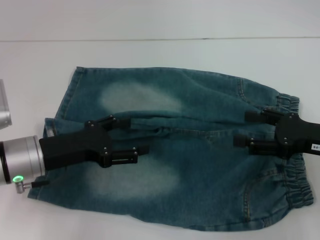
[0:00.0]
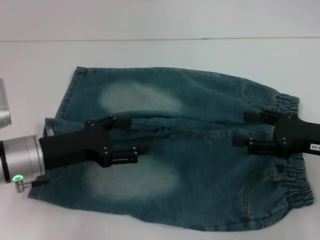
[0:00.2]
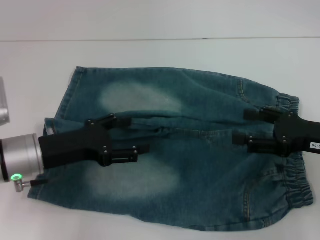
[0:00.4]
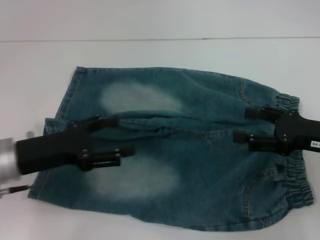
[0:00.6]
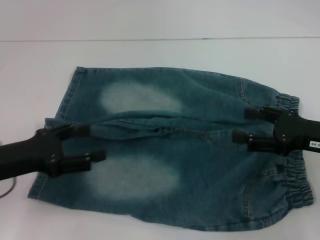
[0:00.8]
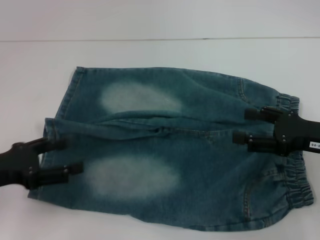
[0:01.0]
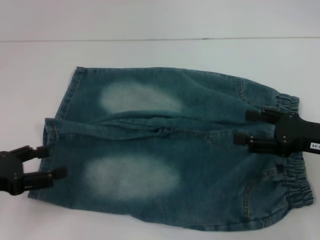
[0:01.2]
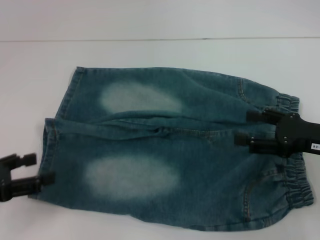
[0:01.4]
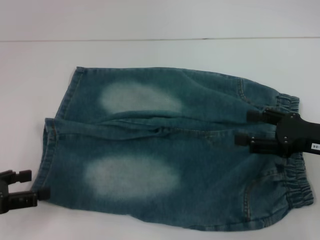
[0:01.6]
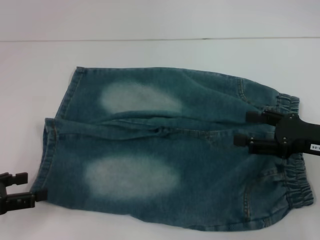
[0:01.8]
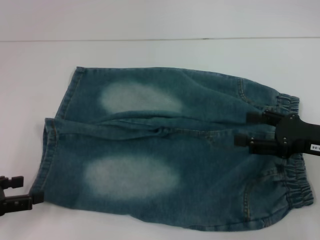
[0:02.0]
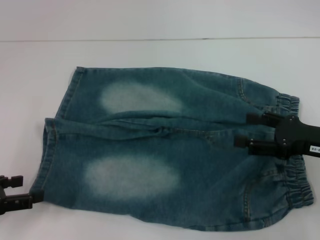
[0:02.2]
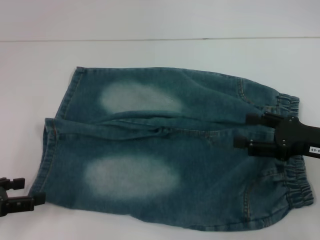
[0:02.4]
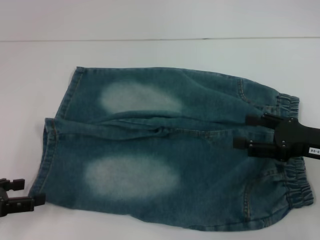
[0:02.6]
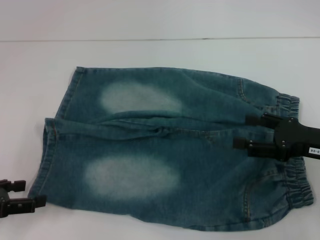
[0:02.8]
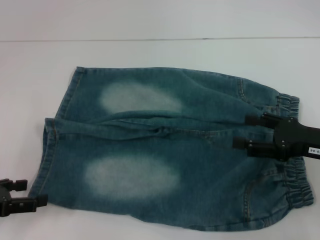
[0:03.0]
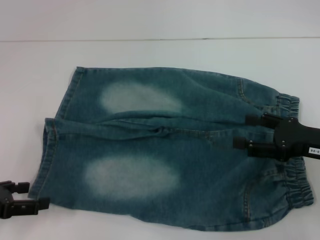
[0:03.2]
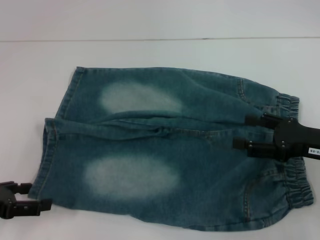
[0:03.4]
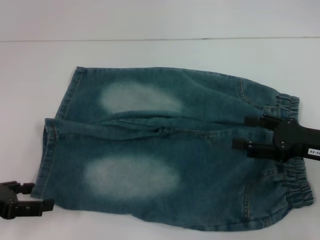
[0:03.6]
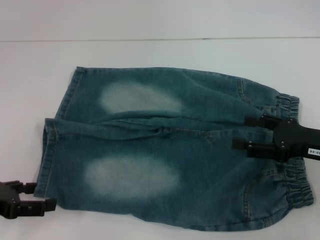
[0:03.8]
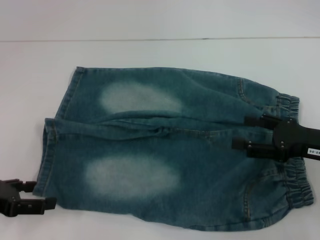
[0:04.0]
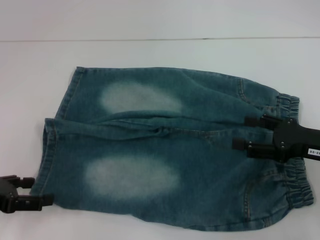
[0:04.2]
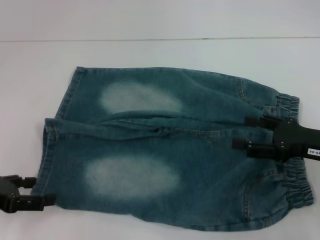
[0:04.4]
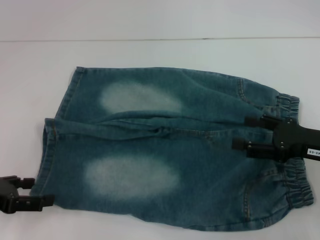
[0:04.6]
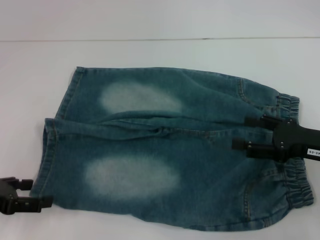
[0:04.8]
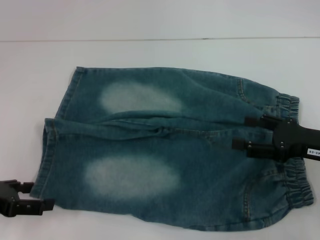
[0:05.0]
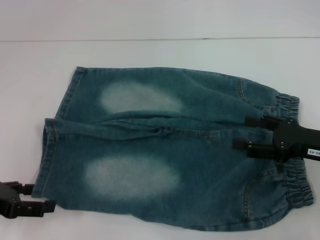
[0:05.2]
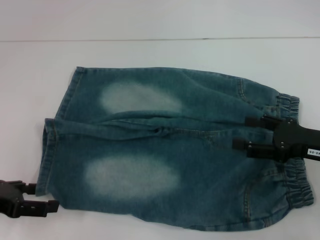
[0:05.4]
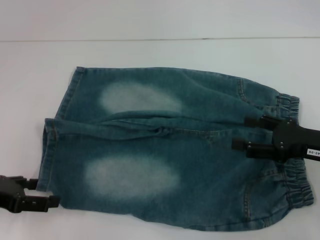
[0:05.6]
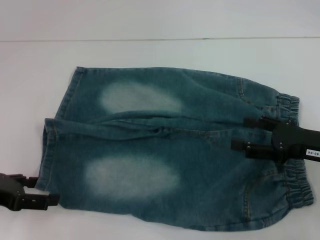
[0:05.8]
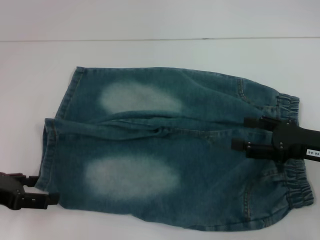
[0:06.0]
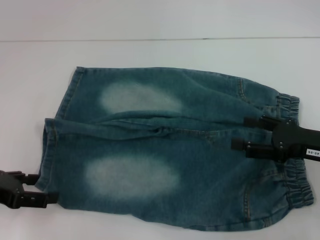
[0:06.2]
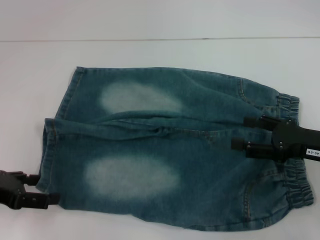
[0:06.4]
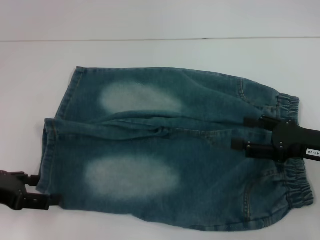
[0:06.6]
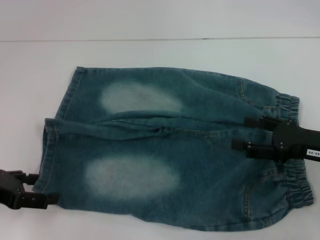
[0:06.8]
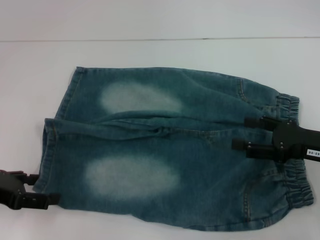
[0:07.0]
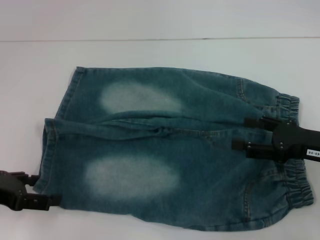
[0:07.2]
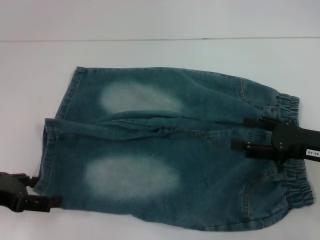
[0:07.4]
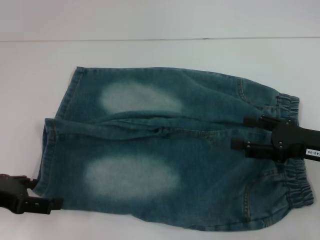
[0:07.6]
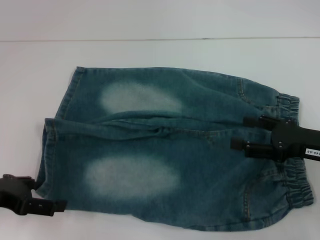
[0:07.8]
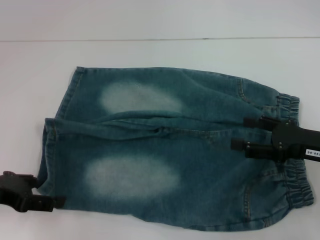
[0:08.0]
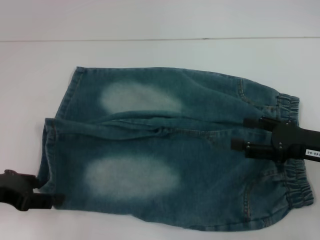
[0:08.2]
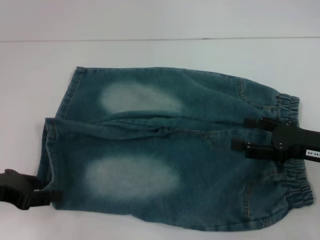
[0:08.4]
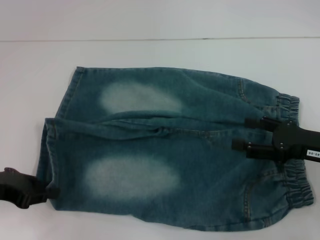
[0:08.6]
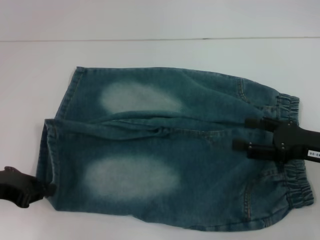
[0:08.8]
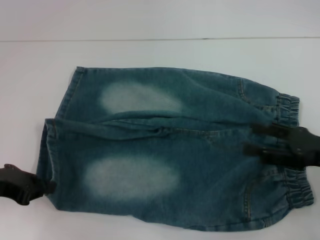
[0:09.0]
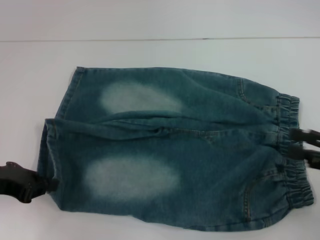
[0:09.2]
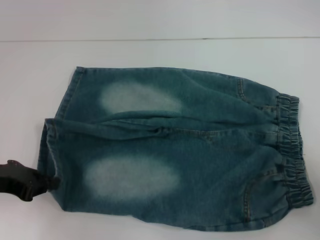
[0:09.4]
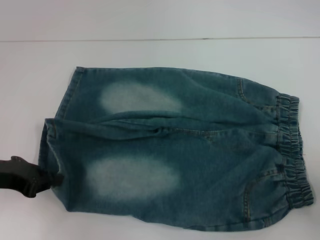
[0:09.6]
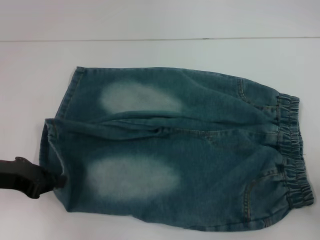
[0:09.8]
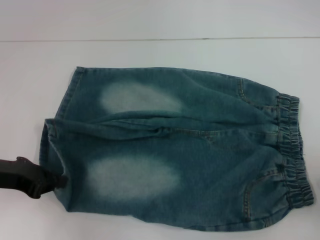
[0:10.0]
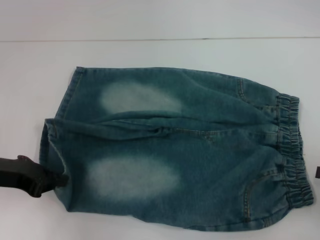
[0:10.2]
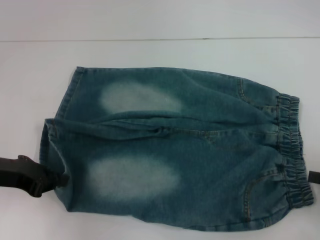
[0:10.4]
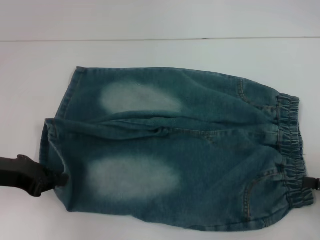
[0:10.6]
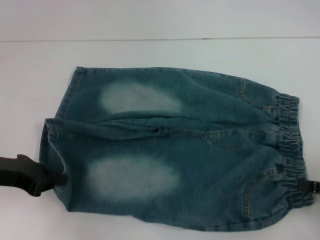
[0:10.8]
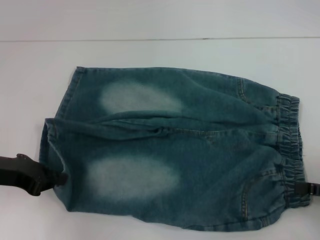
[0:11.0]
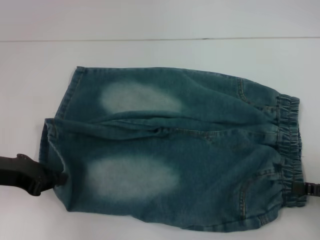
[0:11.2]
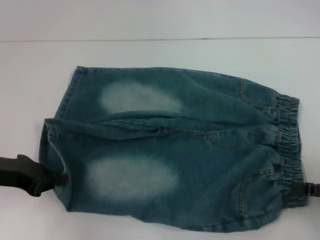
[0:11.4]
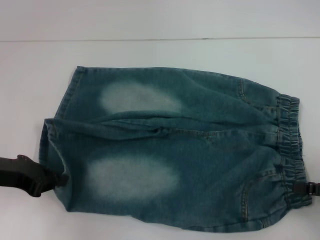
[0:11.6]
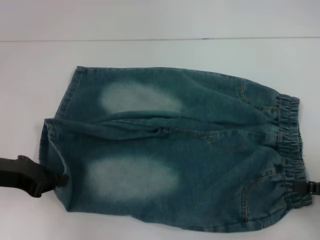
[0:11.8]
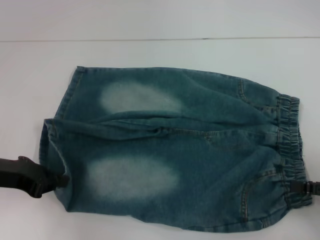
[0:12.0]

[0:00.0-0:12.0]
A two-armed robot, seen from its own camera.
Step, 0:00.0 to 0:08.4: Grab the lower left pant leg with your left hand.
0:00.0 to 0:01.6: The left gripper is displaced to the left and backward by some 15 cm.
0:01.6 to 0:04.4: The grippers stay close to where they were, moving slightly.
0:04.4 to 0:06.0: The two grippers keep their place.
0:06.0 to 0:07.6: The two grippers keep their place.
0:07.6 to 0:09.0: The left gripper closes up.
0:09.0 to 0:10.4: The right gripper heads to the right, covering approximately 10 cm.
0:10.4 to 0:12.0: The grippers stay close to where they were, moving slightly.

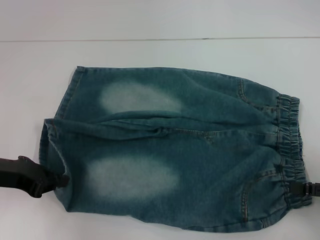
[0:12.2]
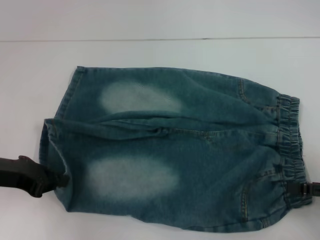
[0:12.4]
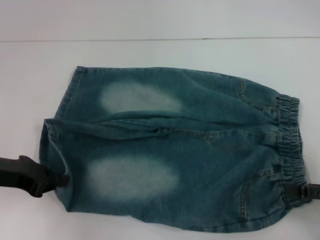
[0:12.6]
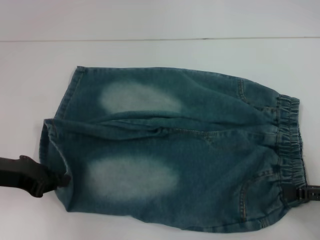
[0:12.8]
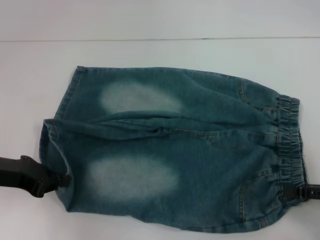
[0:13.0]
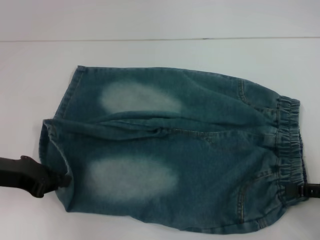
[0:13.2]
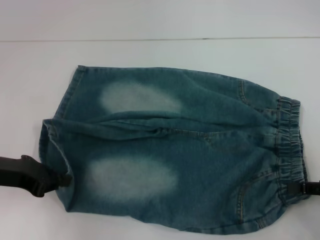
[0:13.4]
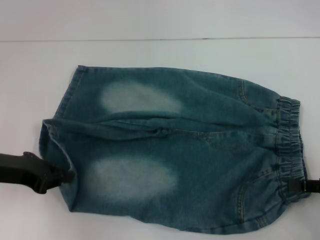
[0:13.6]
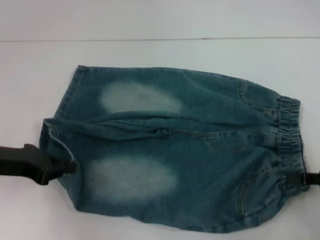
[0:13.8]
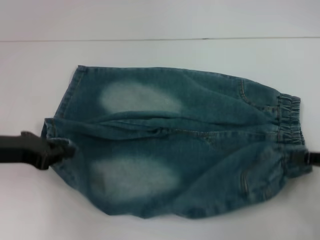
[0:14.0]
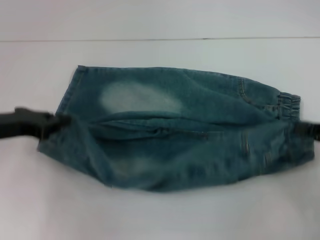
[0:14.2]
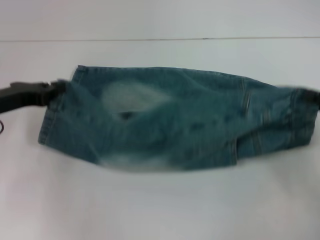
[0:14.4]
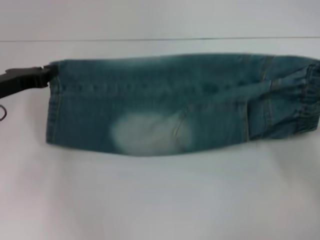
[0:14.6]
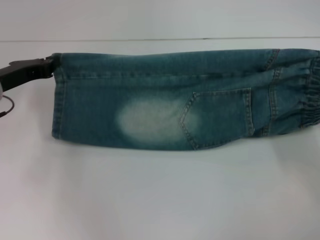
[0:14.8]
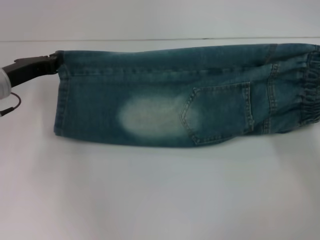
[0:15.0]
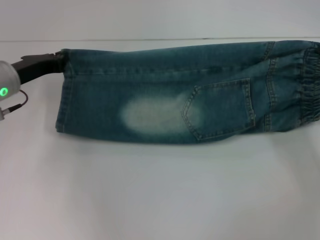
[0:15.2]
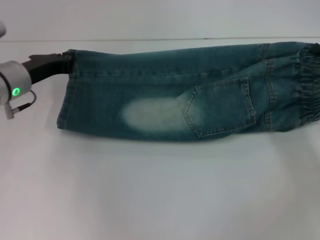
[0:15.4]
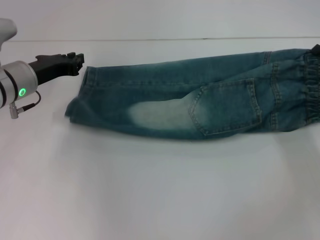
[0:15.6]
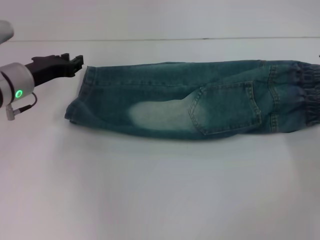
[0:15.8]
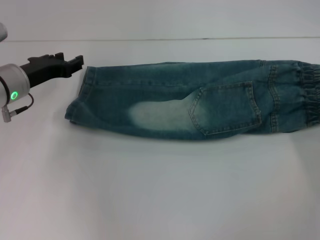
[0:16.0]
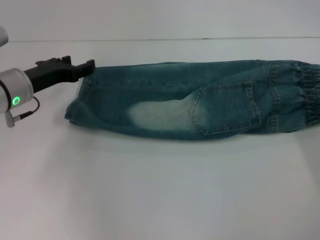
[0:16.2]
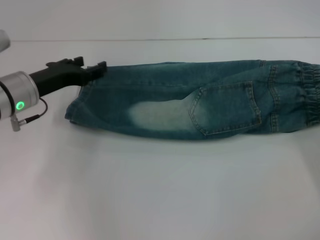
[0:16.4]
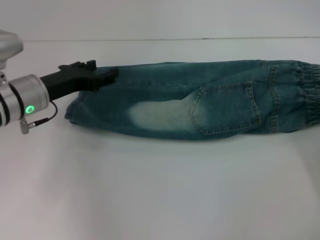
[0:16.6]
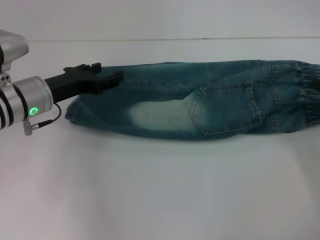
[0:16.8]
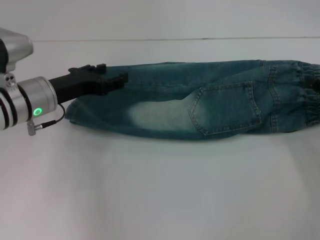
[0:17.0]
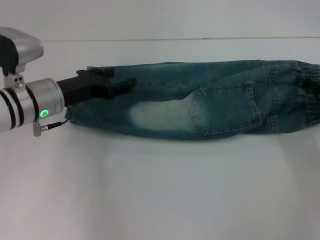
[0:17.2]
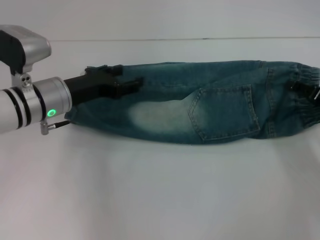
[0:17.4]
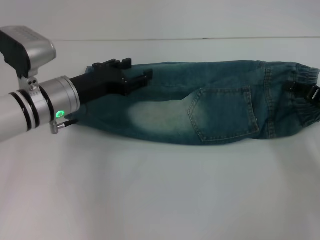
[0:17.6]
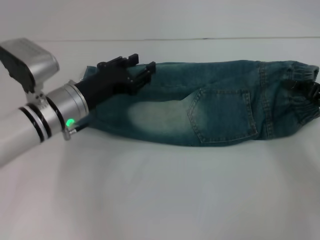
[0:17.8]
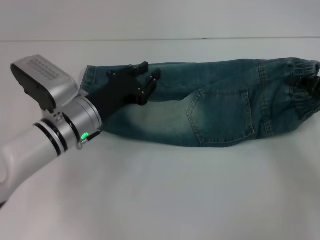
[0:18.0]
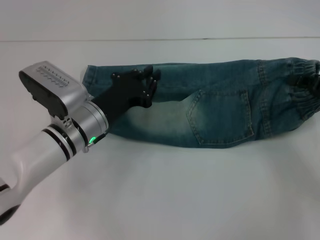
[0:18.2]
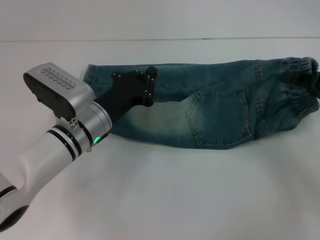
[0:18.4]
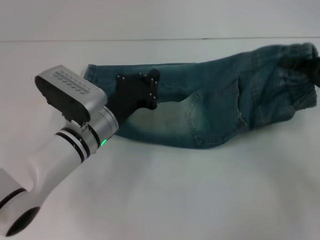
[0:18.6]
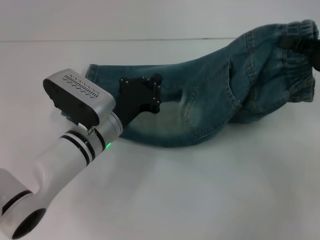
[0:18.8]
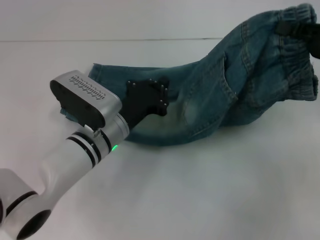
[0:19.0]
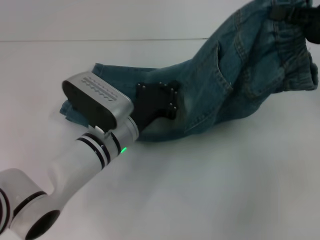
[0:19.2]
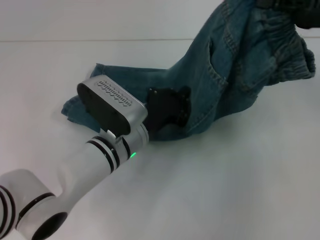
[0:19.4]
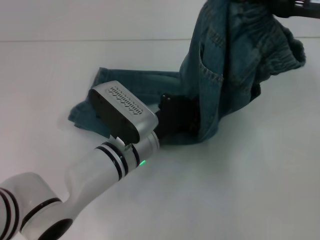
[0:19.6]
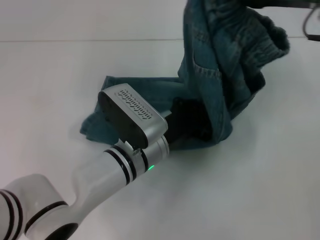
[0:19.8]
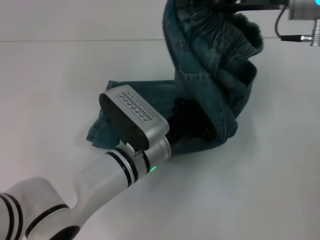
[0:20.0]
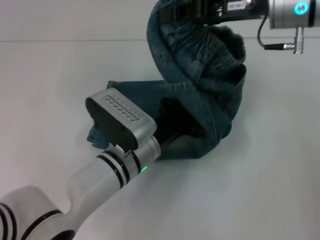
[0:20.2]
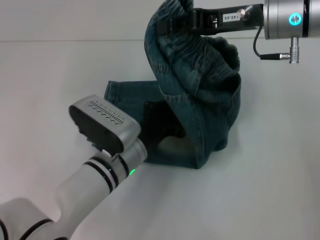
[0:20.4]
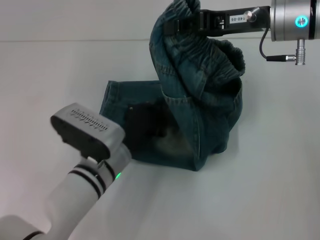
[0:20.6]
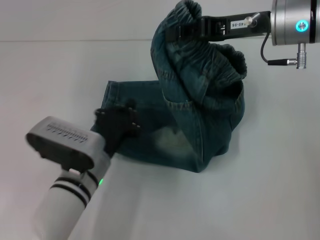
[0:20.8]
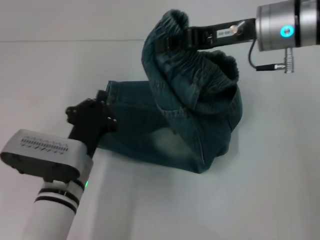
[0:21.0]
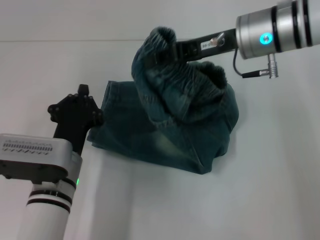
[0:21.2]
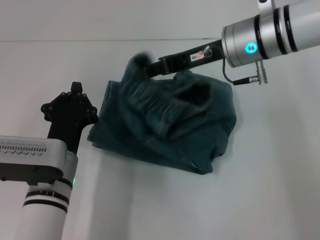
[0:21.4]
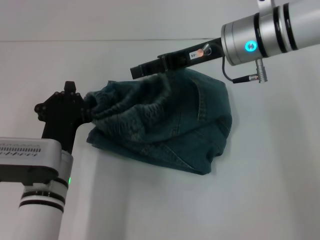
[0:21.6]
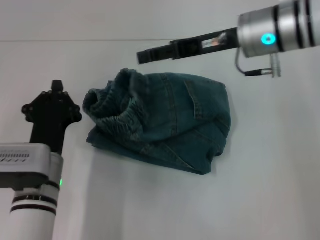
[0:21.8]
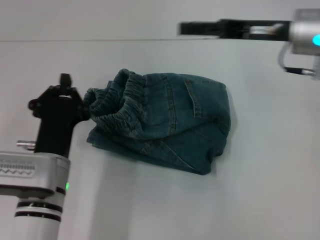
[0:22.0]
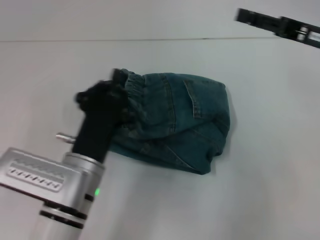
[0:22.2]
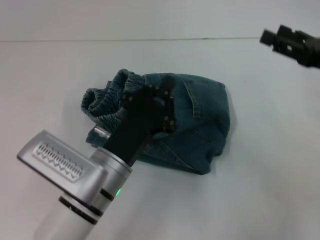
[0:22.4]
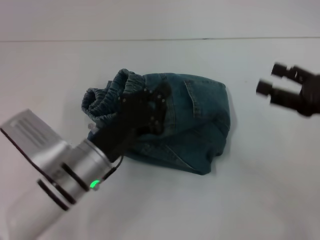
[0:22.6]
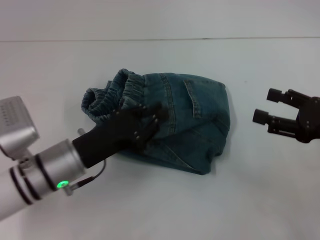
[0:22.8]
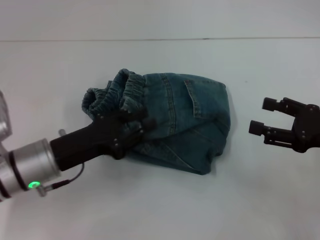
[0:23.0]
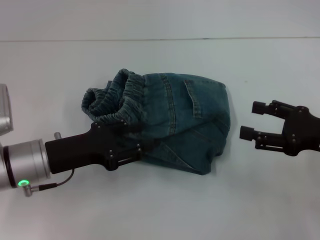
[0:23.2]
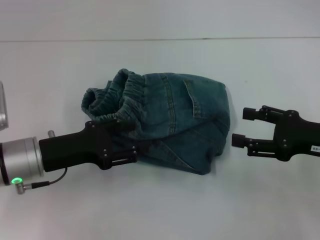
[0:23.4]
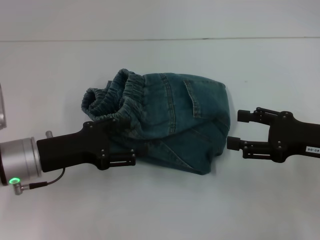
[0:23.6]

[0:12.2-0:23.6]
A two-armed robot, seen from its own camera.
Step, 0:13.0 to 0:15.8: Fold upward with your right hand.
Step, 0:16.0 to 0:16.8: Grab the waistband with your right hand.
Step, 0:17.2 to 0:20.4: Press the middle of the pants with your left hand.
Step, 0:20.6 to 0:21.6: Fold to the left with your right hand.
0:12.2 to 0:13.6: The right gripper closes.
0:13.6 to 0:15.0: Both grippers move forward, approximately 10 cm.
0:15.0 to 0:16.4: The left gripper opens its fingers, while the right gripper opens its fingers.
0:16.4 to 0:17.8: The right gripper moves about 5 cm, and closes up. Meanwhile the left gripper travels to the right by some 5 cm.
0:17.8 to 0:19.4: The left gripper is displaced to the right by approximately 10 cm, and closes its fingers. Meanwhile the right gripper moves upward, approximately 15 cm.
0:19.4 to 0:20.8: The left gripper shifts by about 5 cm; the right gripper shifts some 10 cm to the left.
0:20.8 to 0:22.2: The right gripper heads to the right, covering about 10 cm, and opens up, while the left gripper moves about 5 cm.
0:22.2 to 0:23.6: The left gripper is displaced to the left and forward by about 10 cm, and opens up. The right gripper heads backward and downward, covering roughly 10 cm.
